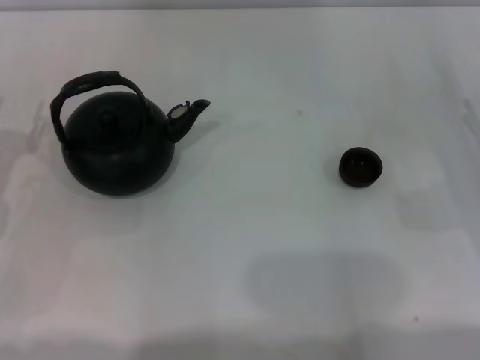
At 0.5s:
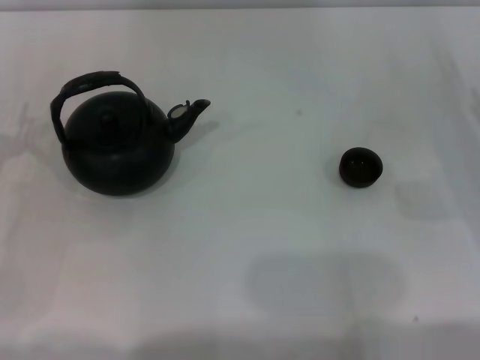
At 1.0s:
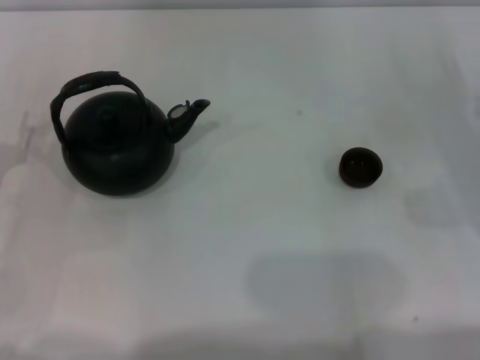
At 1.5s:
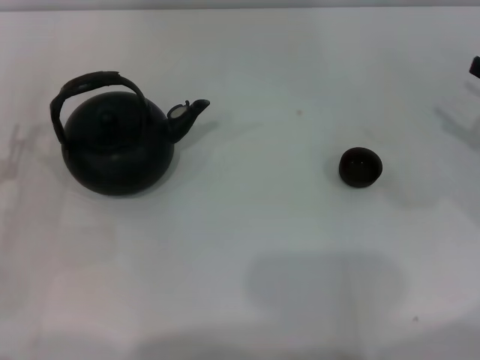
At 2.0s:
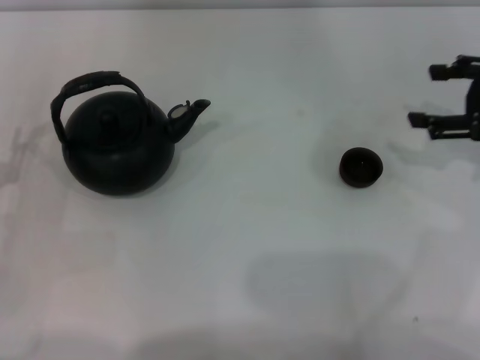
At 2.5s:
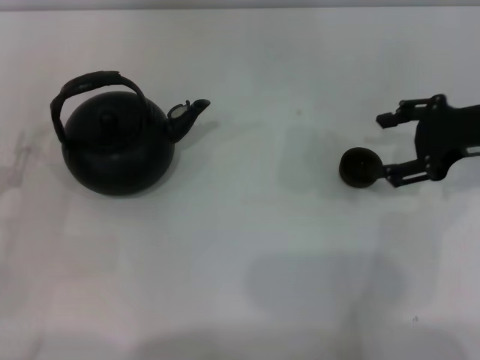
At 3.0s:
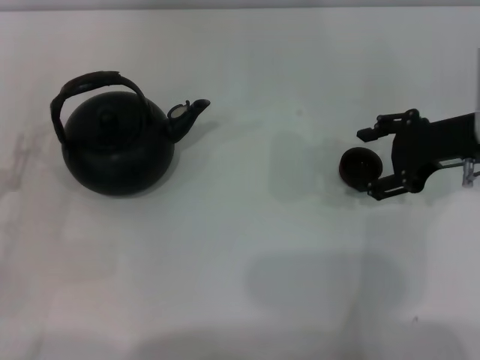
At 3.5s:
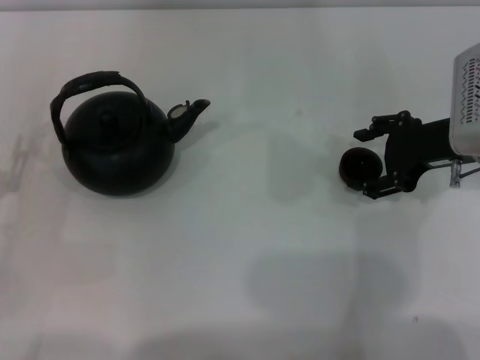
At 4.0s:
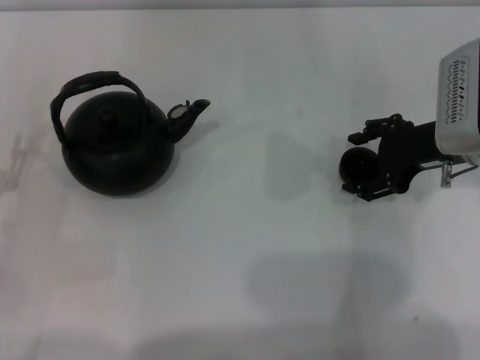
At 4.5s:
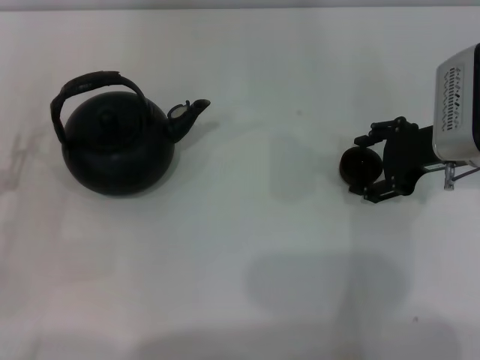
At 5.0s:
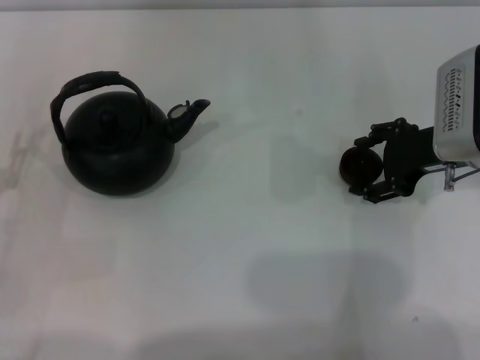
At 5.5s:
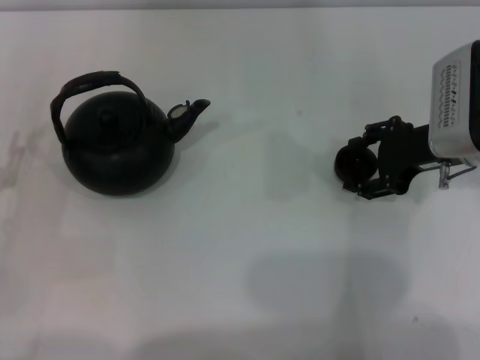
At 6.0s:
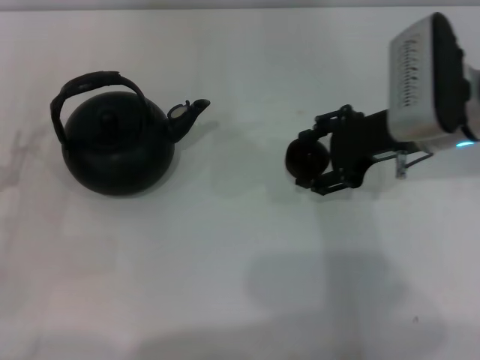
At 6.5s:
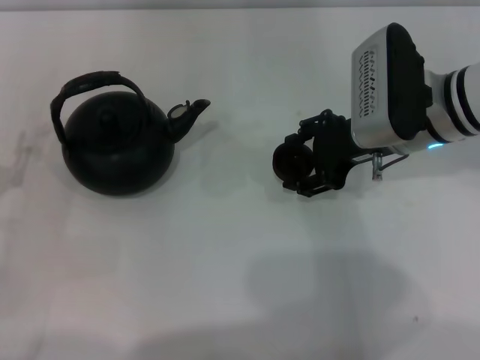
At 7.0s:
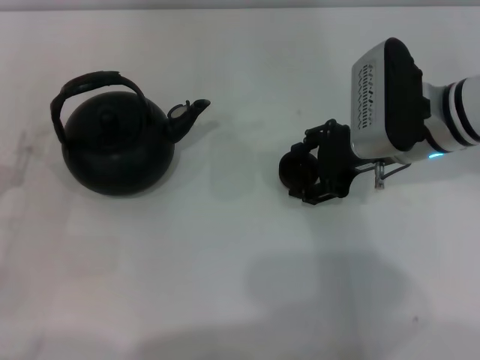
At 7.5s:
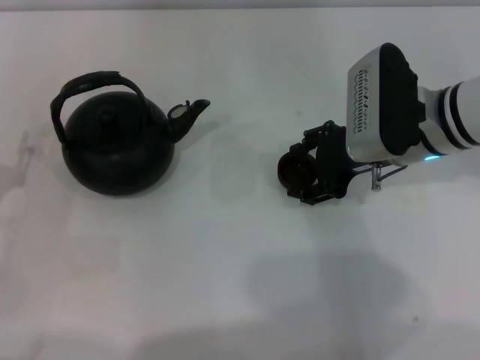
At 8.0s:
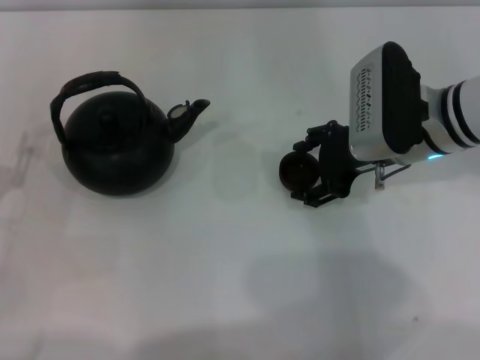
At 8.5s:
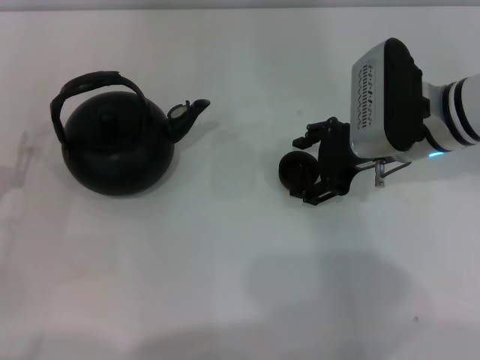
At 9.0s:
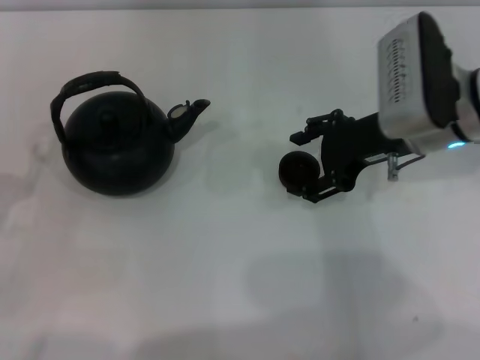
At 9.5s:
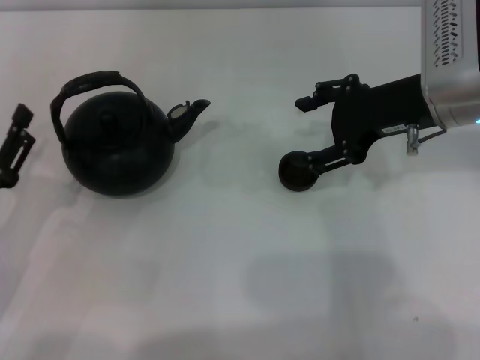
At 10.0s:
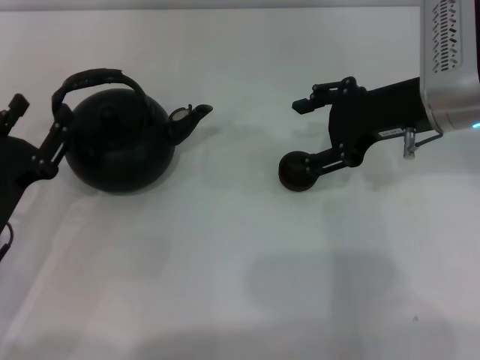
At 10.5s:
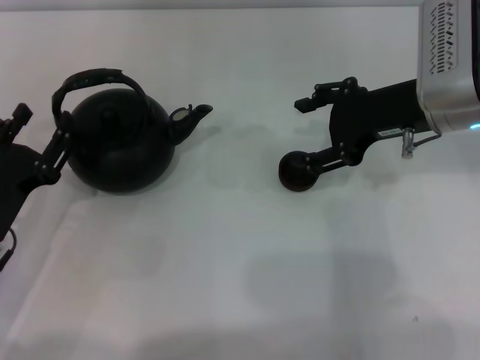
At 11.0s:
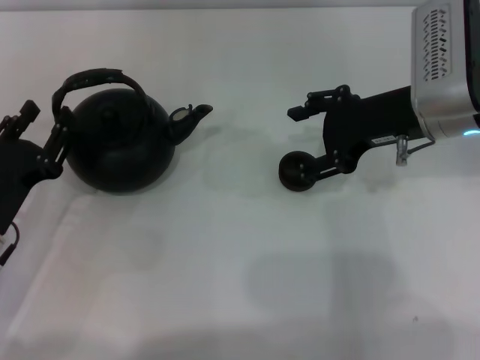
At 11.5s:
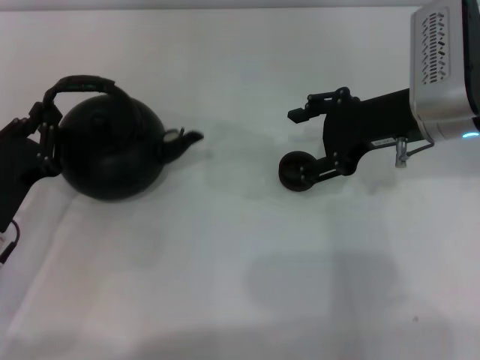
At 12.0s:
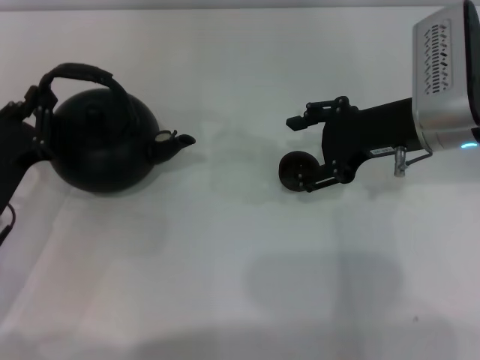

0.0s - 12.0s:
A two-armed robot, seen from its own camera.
Task of the whole recording: Grasp the handle of the teapot with one hand and pour tea into the teacup.
Step, 0.0s - 5.5s: Pick up the teacup with the right gripper.
Step, 6.0s - 9.0s: Place the teacup in the center of view with the right gripper.
0.0s - 2.0s: The right gripper travels upward and forward by approximately 15 cm.
2.0s - 4.0s: The right gripper shifts about 10 cm to the left.
4.0s - 6.0s: The right gripper ends up approximately 5 cm from where it was.
6.0s - 8.0s: The grippers stay close to where they were, moving slightly.
8.0s - 10.0s: The left gripper moves to the right, approximately 5 cm. The right gripper shifts some 5 cm upward.
10.0s - 12.0s: The left gripper closes up.

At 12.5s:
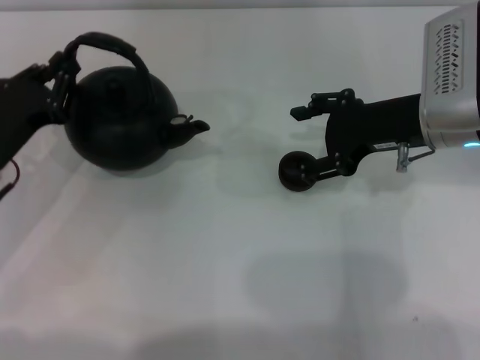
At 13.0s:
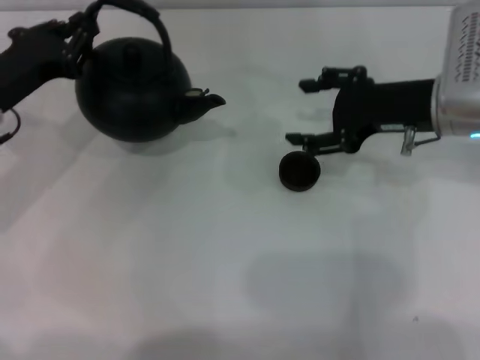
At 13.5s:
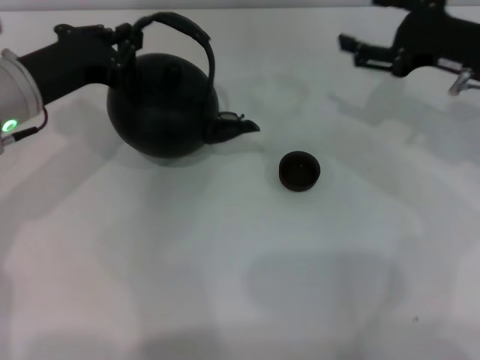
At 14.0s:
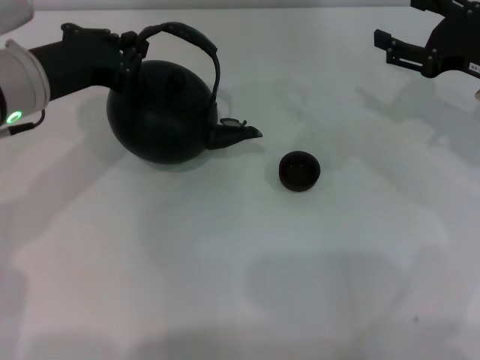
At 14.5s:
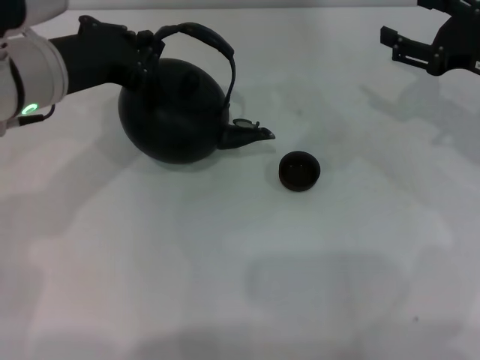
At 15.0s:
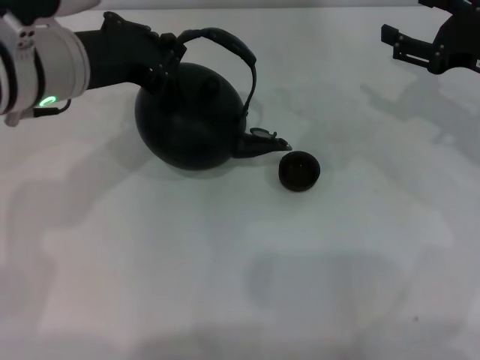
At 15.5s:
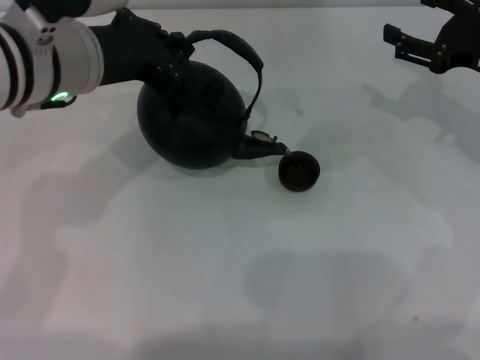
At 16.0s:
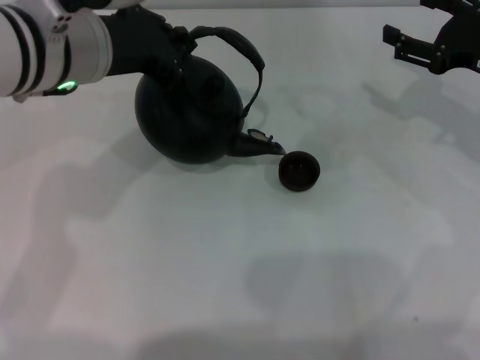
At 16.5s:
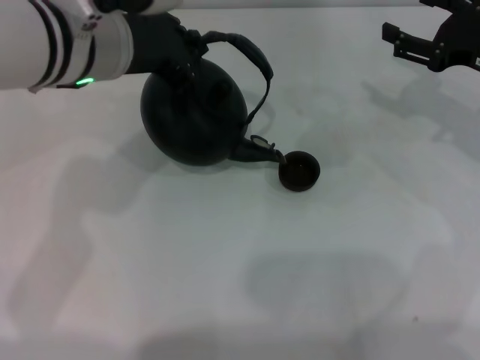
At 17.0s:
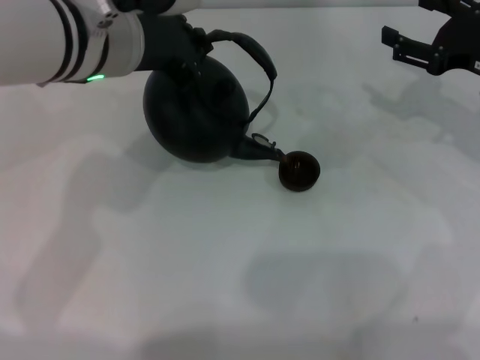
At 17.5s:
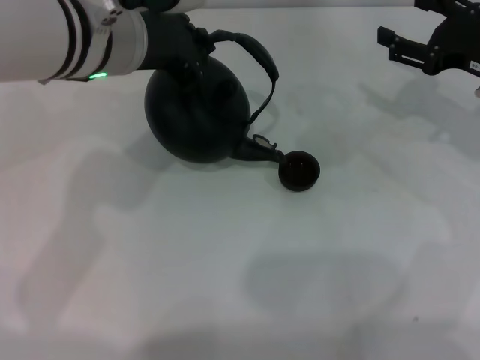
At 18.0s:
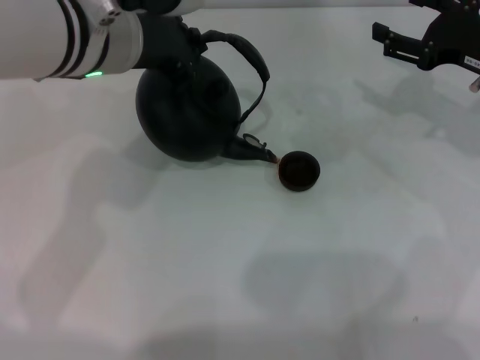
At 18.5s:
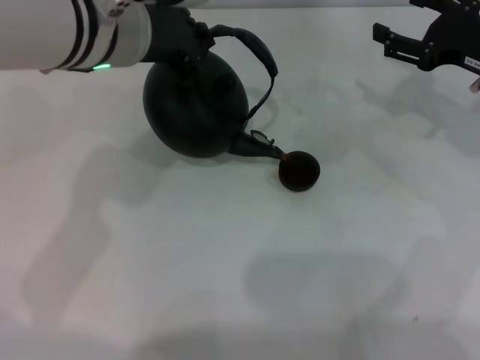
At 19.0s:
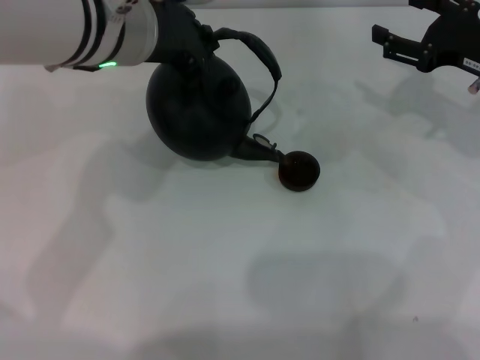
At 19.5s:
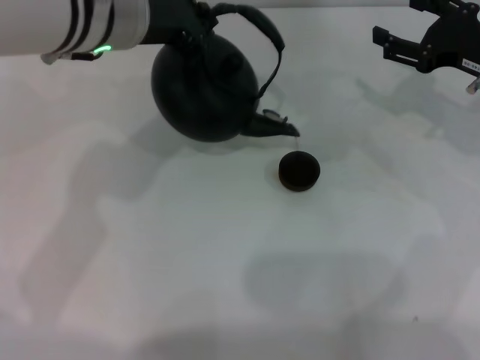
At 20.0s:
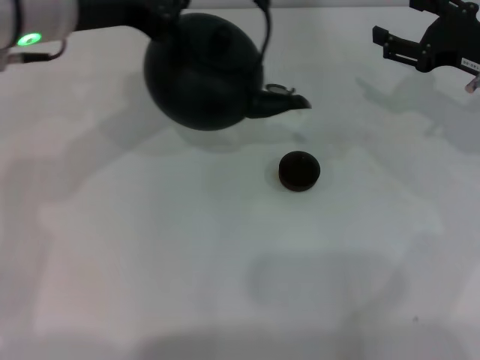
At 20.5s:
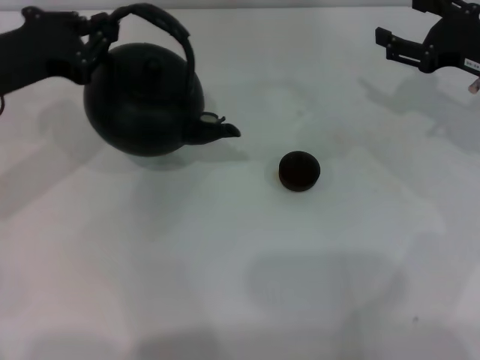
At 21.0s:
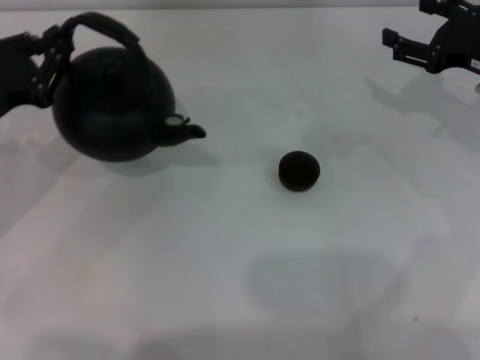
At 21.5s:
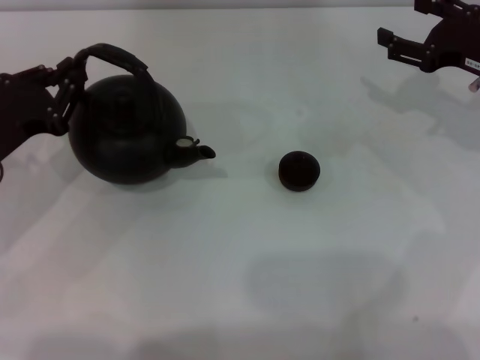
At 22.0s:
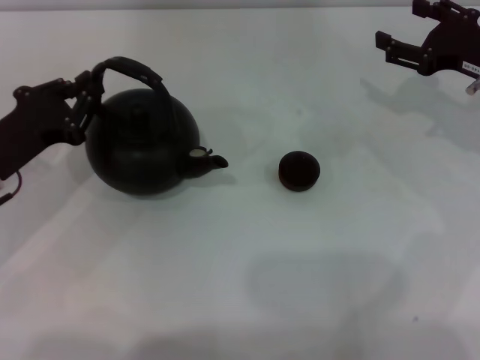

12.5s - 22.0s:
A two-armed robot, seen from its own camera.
Task of the whole recording: Grasp the handle of the teapot with one hand and pour tea into the teacup.
Step, 13.5s - 19.5s: Pour tea into the teacup with the left gripper.
12.5s - 14.5s: The right gripper is displaced to the right by about 10 cm, while the left gripper heads upward and to the right, covering roughly 15 cm.
14.5s - 16.5s: The left gripper moves to the right, some 5 cm.
16.5s - 18.0s: The grippers move only a little.
18.0s - 20.0s: The left gripper heads to the left, covering some 5 cm.
20.0s - 22.0s: The left gripper heads downward, to the left and backward, covering approximately 20 cm.

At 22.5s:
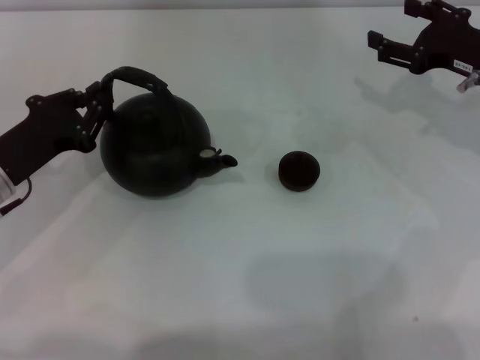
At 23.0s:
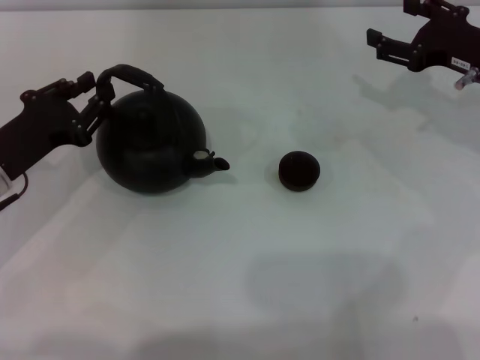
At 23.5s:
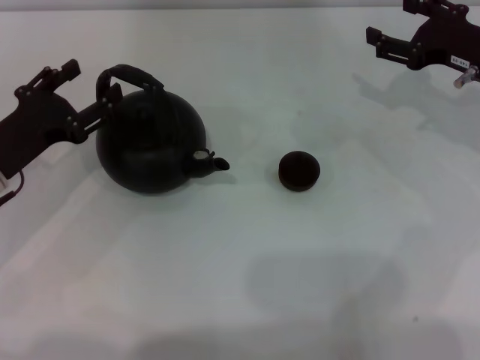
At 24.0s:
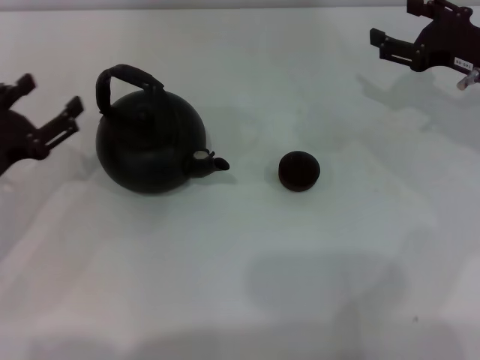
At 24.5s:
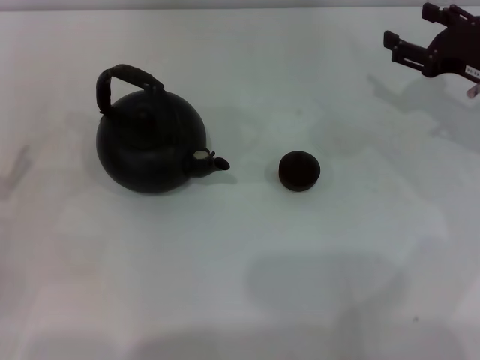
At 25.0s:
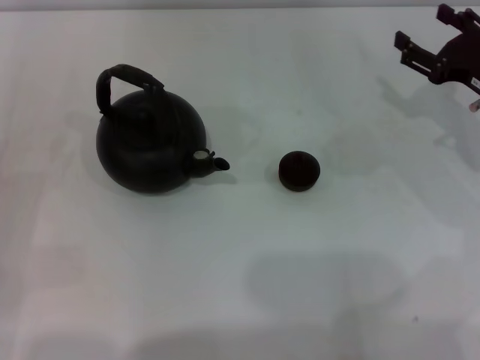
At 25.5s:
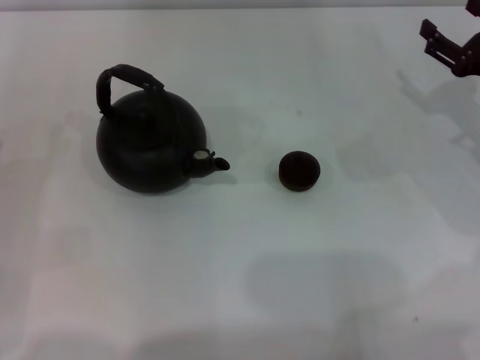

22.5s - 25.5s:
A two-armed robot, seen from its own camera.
Task of the whole recording: Grasp the handle of the teapot with one hand and pour tea into the teacup.
22.5s - 24.0s: The left gripper opens its fingers.
24.0s - 25.5s: The right gripper moves approximately 5 cm, while the left gripper moves about 5 cm.

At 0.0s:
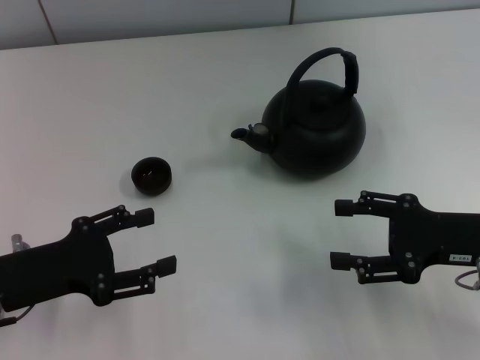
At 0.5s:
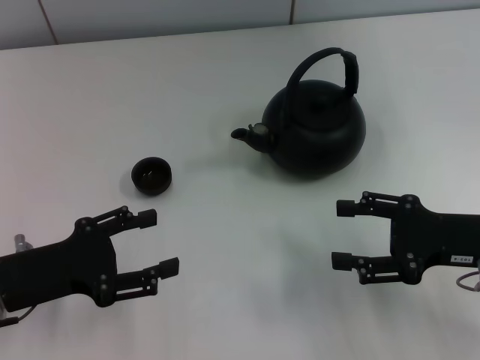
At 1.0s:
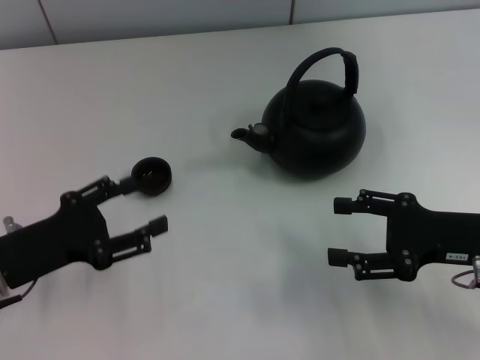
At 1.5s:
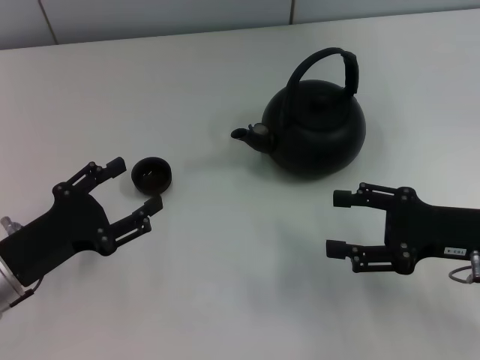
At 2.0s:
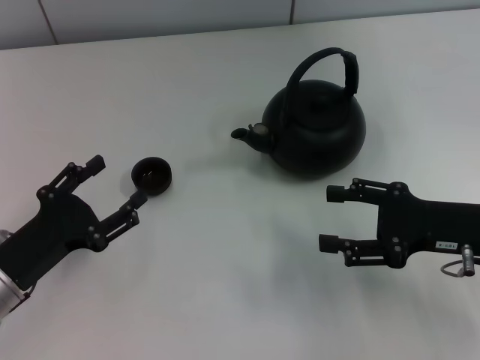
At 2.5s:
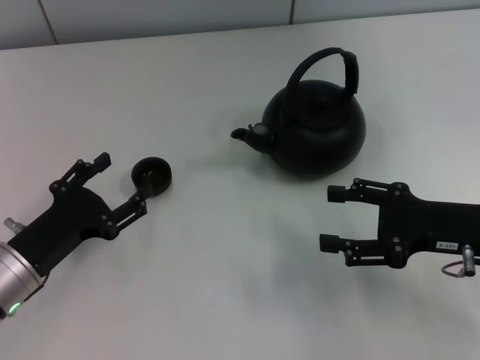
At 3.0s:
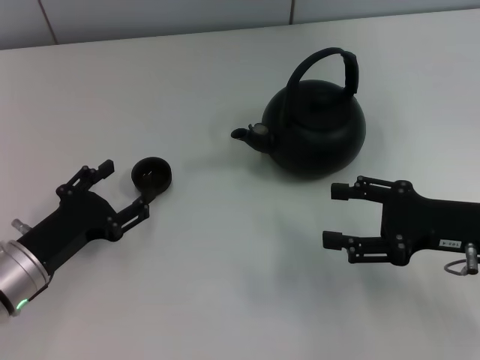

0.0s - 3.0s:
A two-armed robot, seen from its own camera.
Task of the whole recording: Grasp the handle of the teapot with one hand and pour tea into the teacup.
1.5s - 3.0s: The grippers stay close to where they were, moving slightly.
